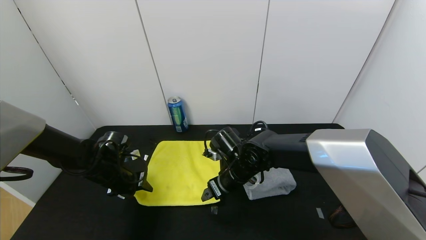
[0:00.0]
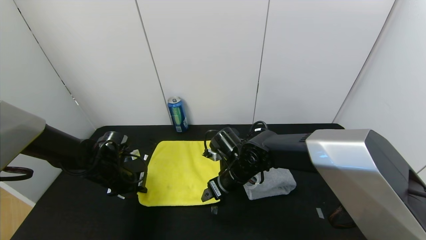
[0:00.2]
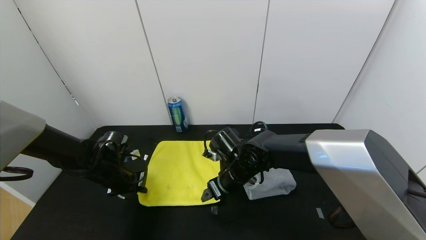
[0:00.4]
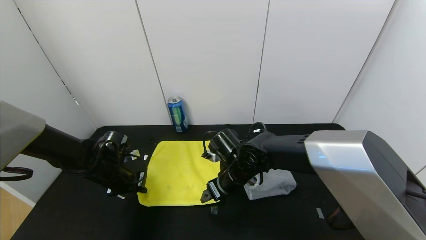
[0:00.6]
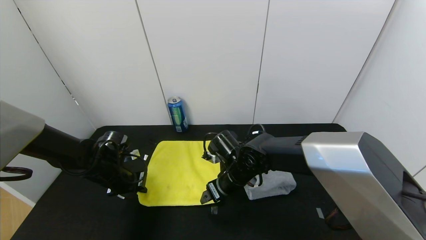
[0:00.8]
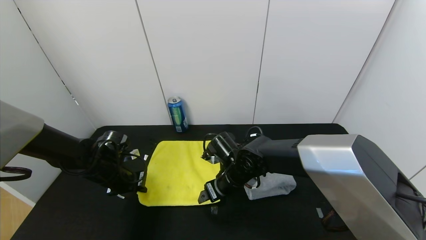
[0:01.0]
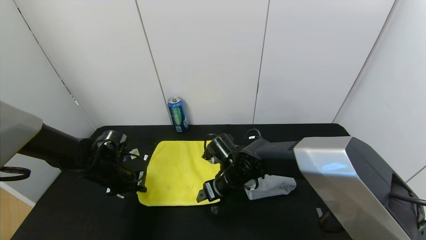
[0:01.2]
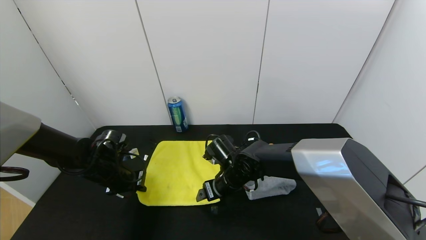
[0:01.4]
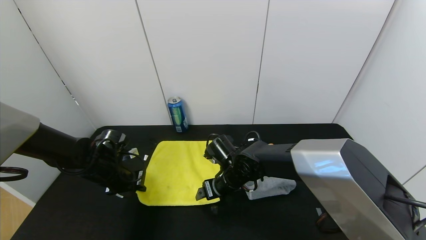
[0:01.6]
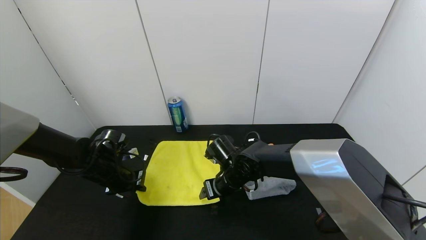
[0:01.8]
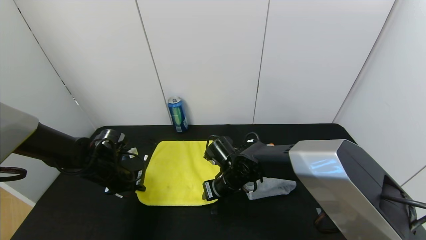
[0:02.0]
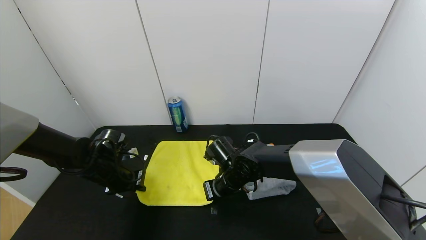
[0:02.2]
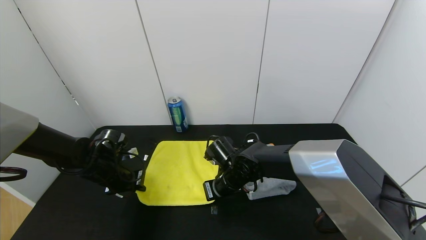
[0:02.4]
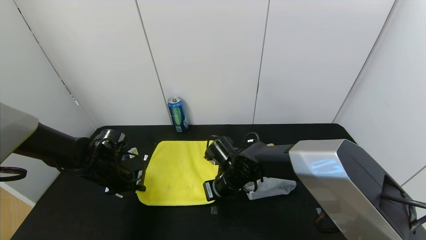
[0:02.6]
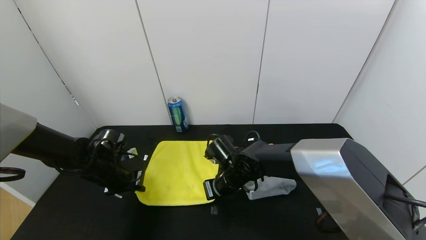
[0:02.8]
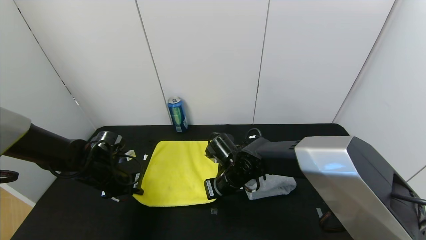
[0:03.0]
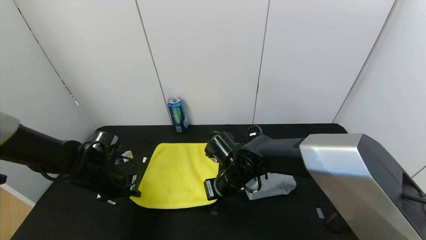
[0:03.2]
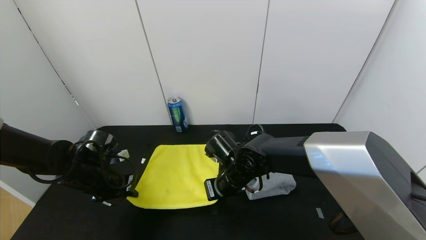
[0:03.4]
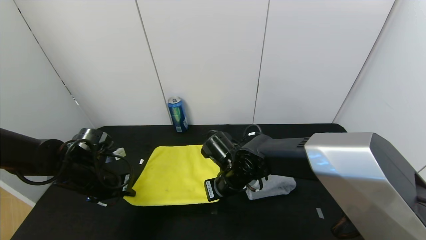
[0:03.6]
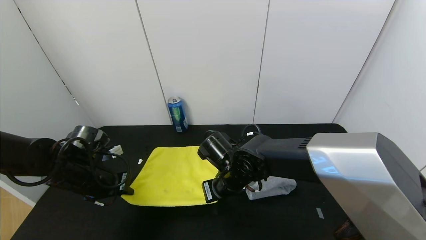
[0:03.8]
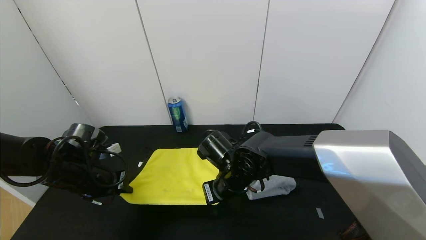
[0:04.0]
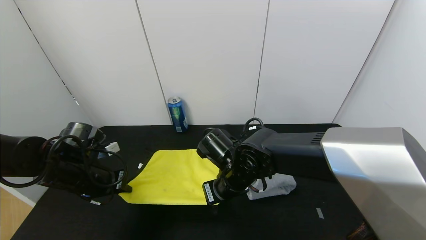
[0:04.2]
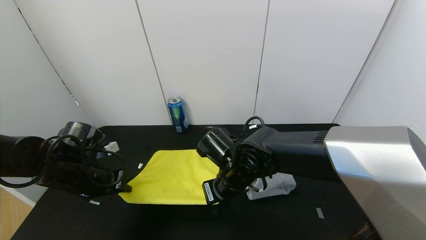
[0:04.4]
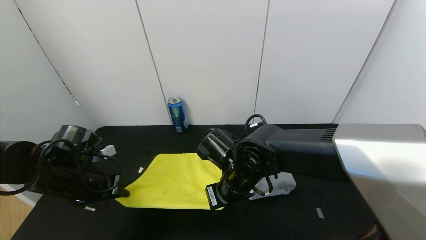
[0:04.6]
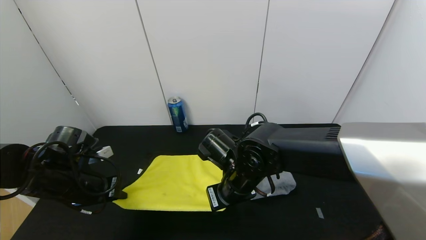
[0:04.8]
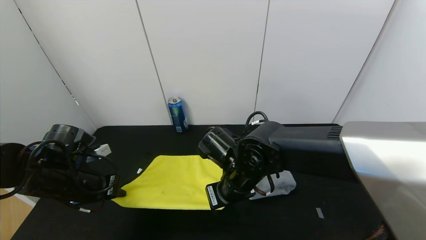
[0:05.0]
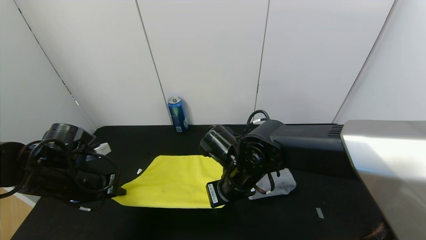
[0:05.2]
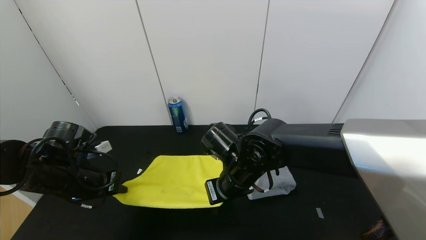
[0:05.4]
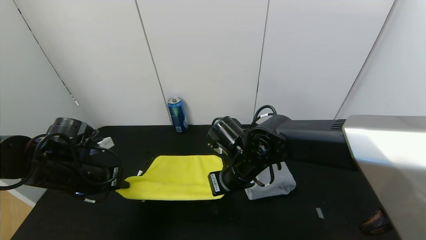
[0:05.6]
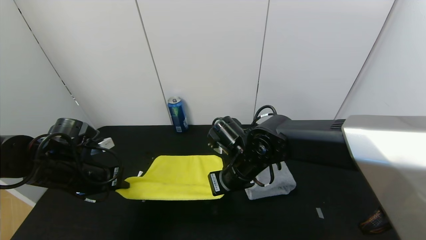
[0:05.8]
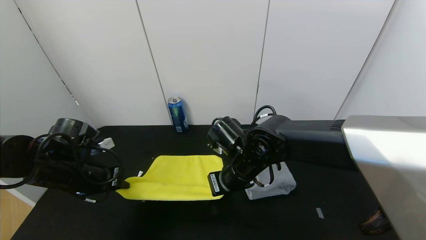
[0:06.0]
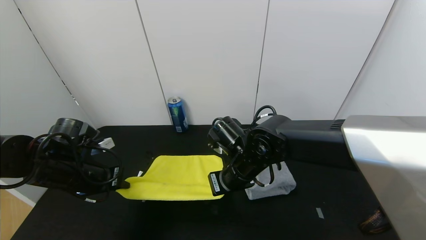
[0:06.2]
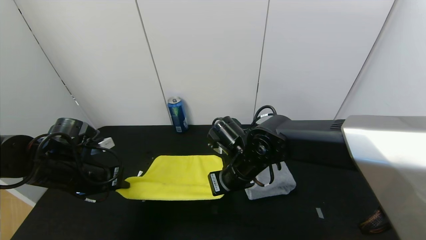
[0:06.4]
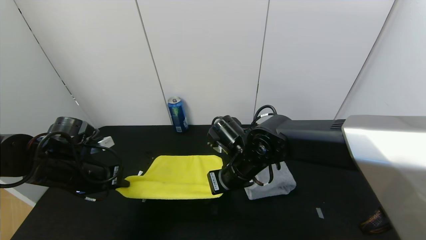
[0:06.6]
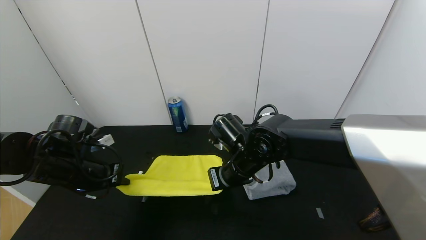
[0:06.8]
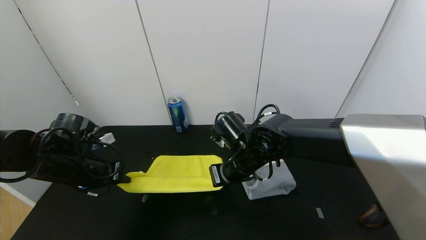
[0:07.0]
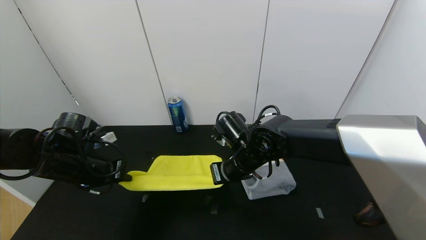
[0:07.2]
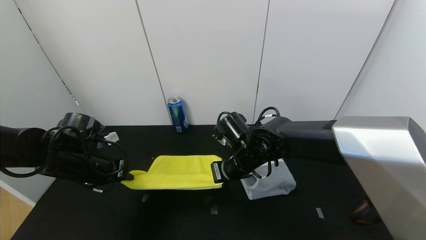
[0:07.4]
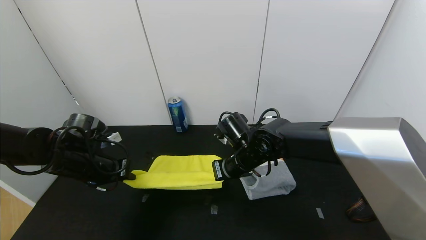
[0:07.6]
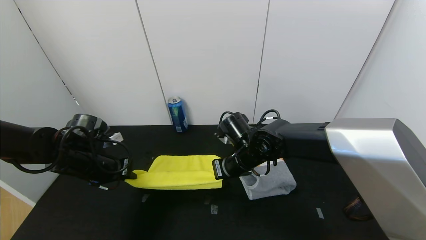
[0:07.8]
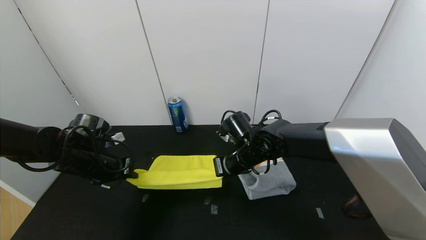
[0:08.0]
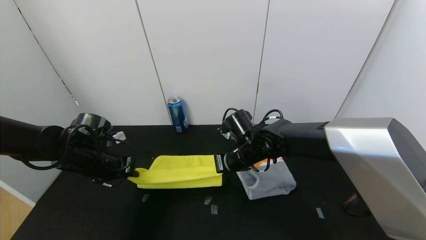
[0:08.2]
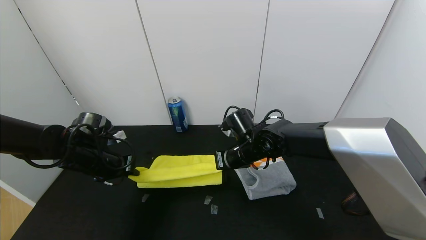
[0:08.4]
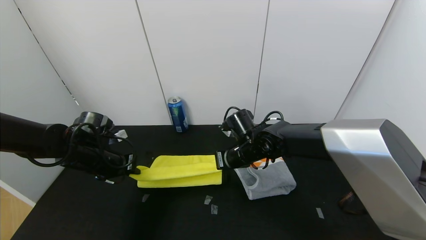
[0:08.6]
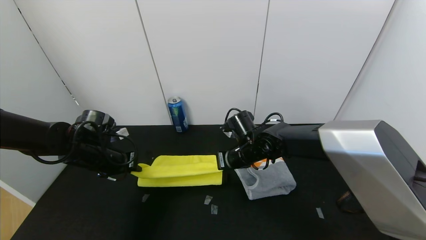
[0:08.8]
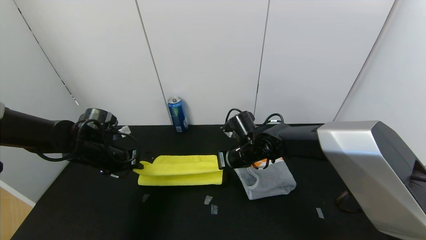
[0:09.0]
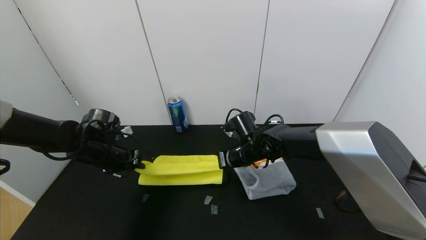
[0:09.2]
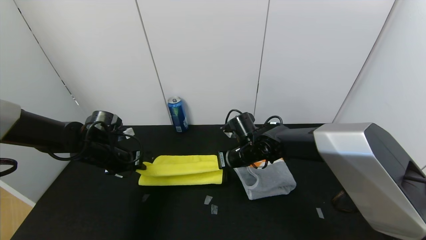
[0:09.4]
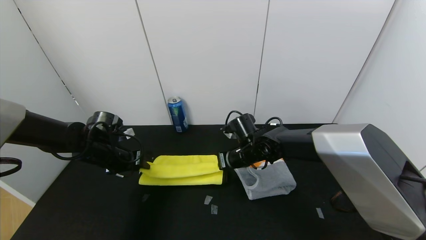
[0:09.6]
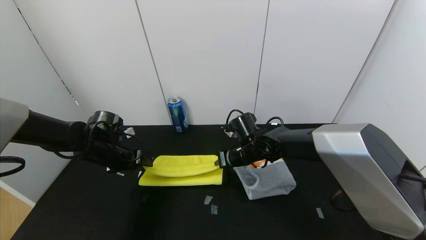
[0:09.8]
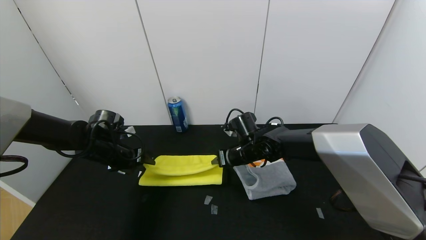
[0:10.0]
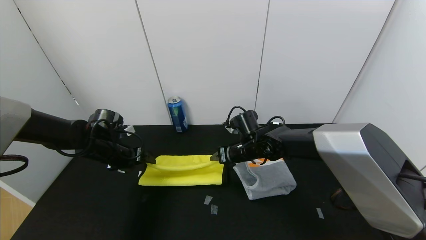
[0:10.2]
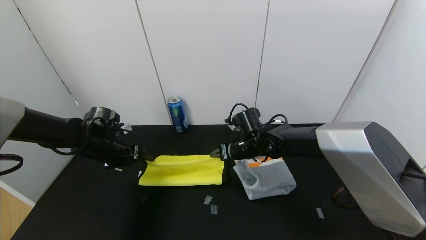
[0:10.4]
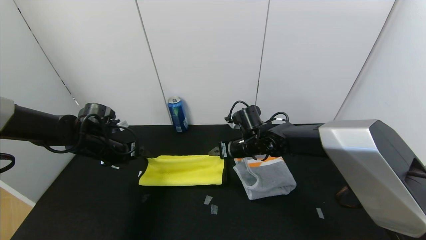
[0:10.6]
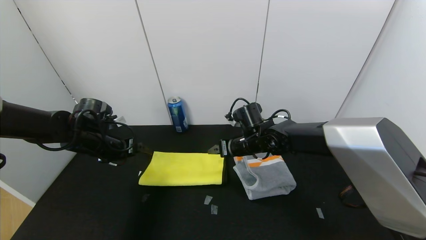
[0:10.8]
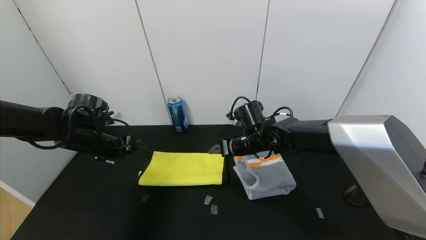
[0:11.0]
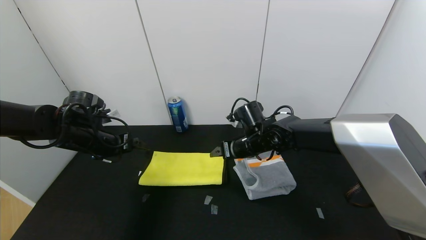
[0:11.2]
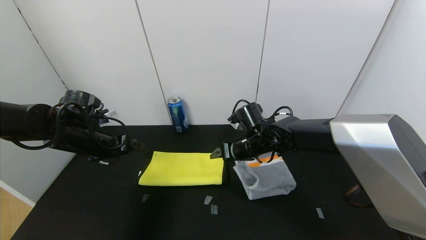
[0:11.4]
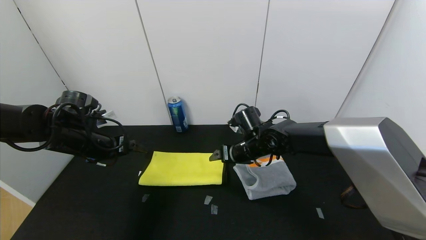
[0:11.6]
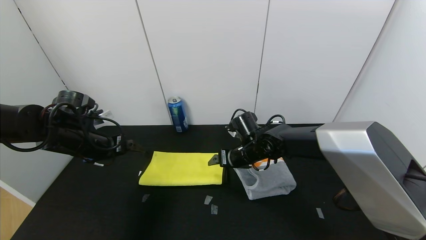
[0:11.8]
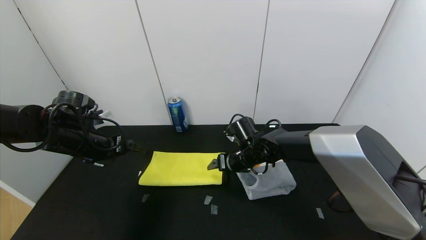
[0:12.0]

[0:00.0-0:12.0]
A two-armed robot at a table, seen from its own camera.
Task of the whole recording: Use the gripper to fold the yellow towel and grey towel in half twice,then put the yellow towel on the grey towel.
Step, 0:00.0 to 0:10.8: Fold the yellow towel upwards with the left gripper.
Step, 0:00.0 to 0:10.8: Fold the yellow towel upwards with the right gripper.
0:00.0 to 0:01.6: The left gripper closes.
0:01.6 to 0:03.0: The right gripper closes its fingers.
0:03.0 to 0:04.4: The right gripper ends up roughly 5 cm from where it was, while the left gripper goes approximately 5 cm upward.
0:04.4 to 0:07.6: The grippers stay close to where they were, moving slightly.
0:07.6 to 0:09.0: The grippers make only small movements.
0:09.0 to 0:10.4: The right gripper opens. The left gripper opens.
0:10.4 to 0:12.0: The left gripper goes about 5 cm upward.

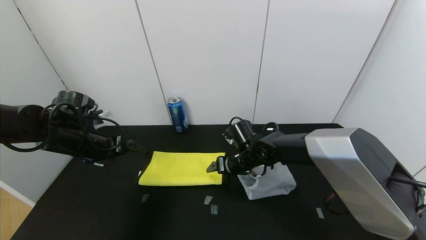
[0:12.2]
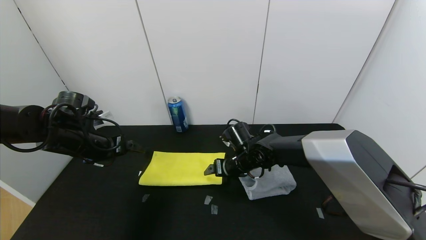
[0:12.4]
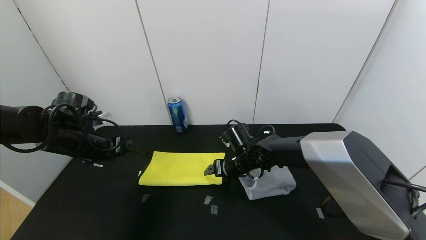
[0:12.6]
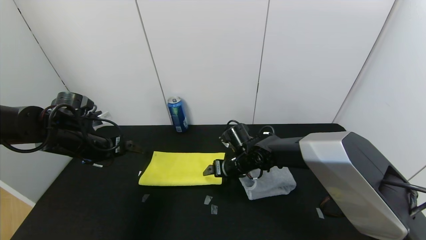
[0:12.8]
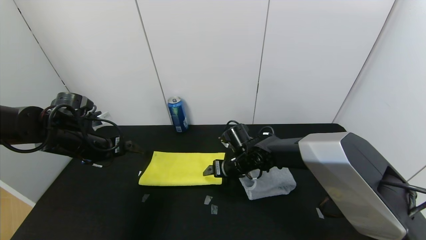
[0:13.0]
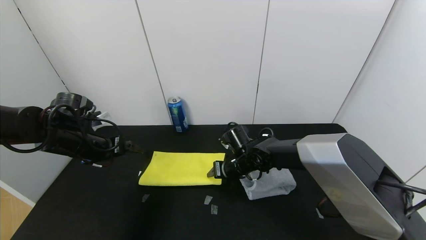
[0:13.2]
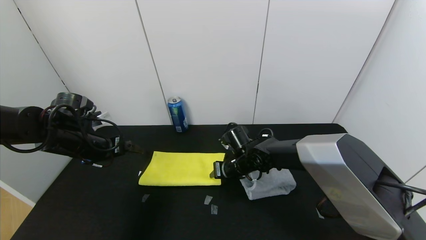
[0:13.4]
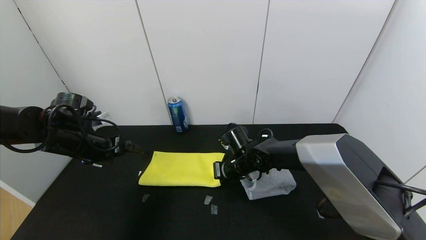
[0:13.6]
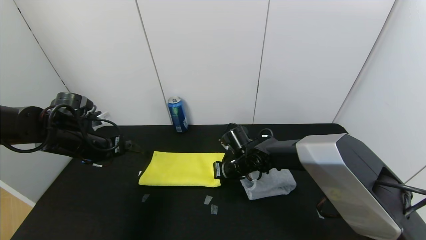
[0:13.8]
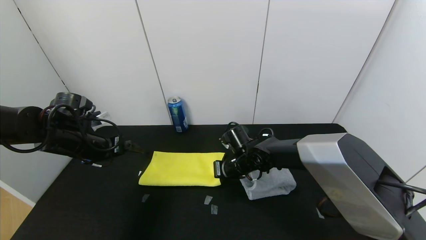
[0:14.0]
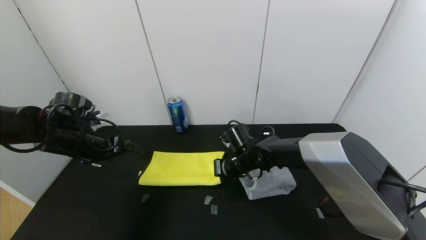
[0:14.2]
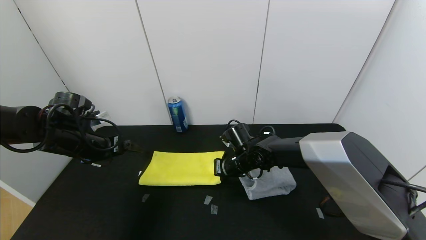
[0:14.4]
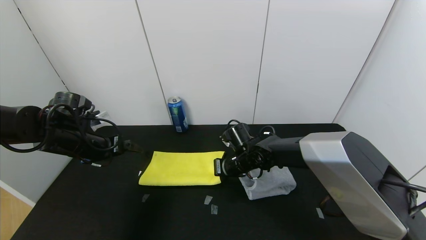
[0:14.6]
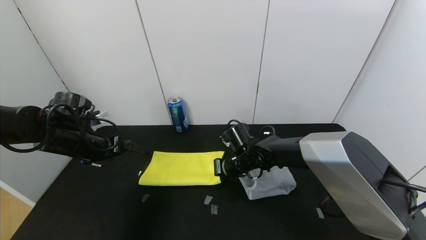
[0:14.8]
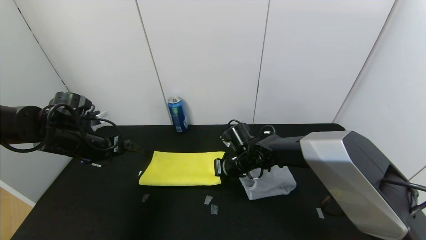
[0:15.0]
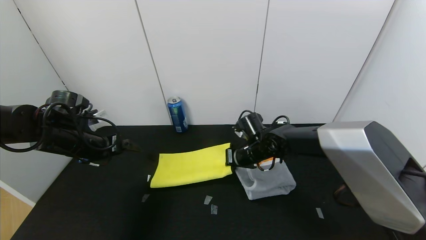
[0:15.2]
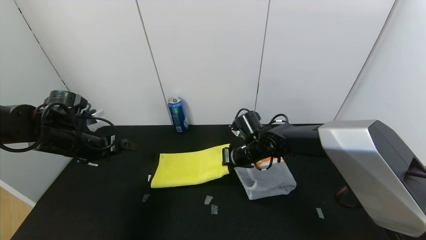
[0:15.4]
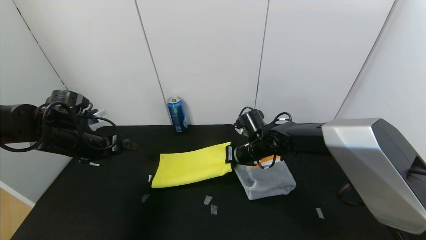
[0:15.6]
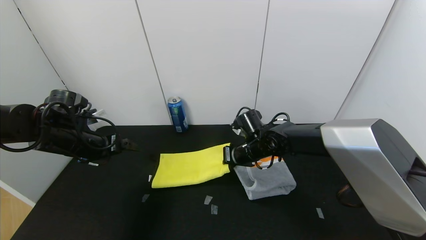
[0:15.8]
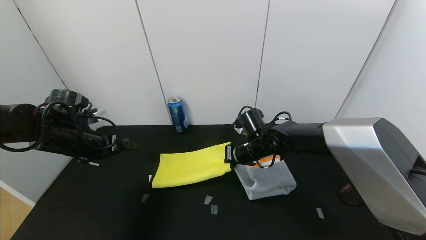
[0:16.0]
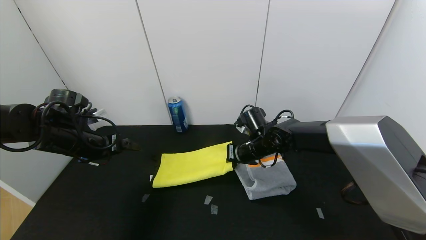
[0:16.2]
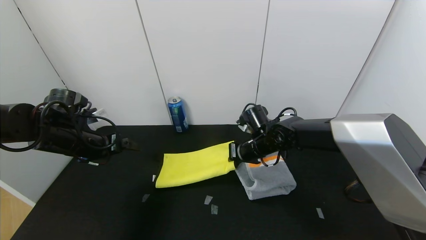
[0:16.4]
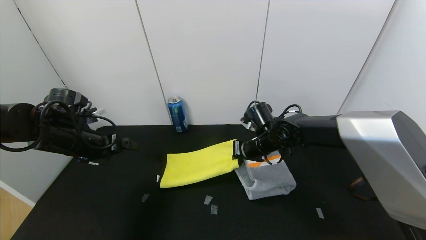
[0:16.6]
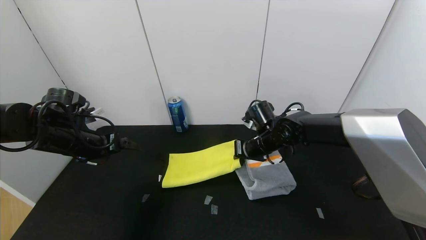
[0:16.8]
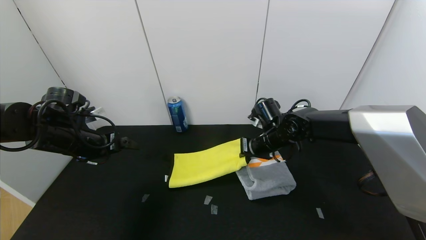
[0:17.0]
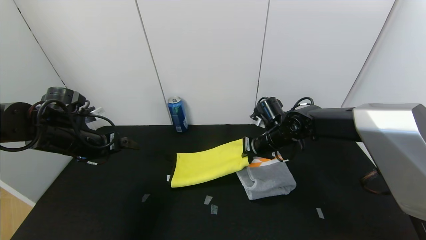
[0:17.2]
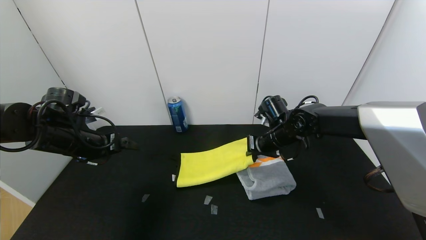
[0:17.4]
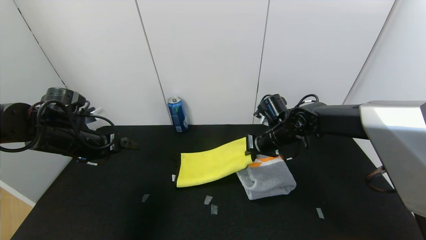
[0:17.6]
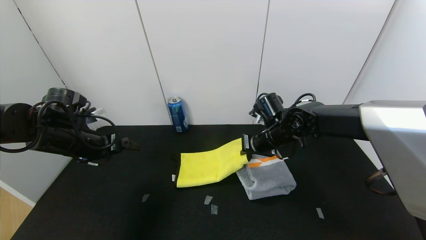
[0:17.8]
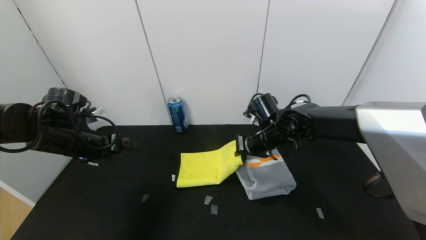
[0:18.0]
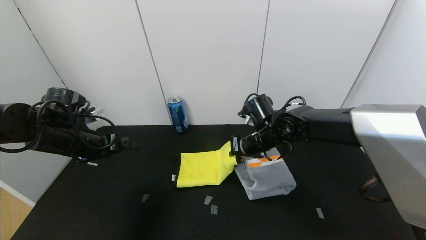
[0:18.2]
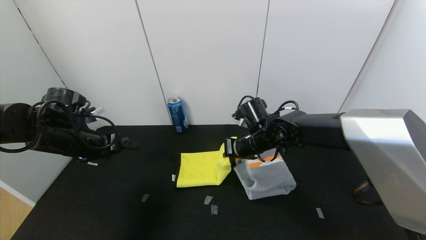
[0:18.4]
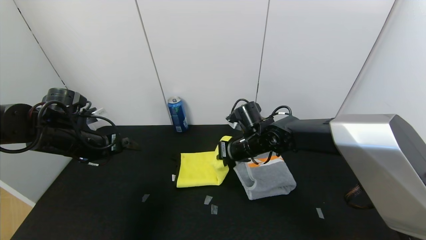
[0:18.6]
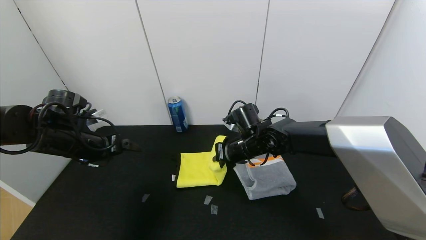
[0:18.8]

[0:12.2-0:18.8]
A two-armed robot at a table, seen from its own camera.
Task of the whole recording: Use the gripper to fold the yellow towel and grey towel in half twice,then put the yellow towel on the grey towel.
0:12.2 to 0:13.8: The right gripper closes.
0:13.8 to 0:15.4: The two grippers keep their place.
0:15.4 to 0:17.2: The right gripper shifts approximately 10 cm to the right and upward.
0:17.2 to 0:18.8: The right gripper is displaced to the left by about 10 cm.
